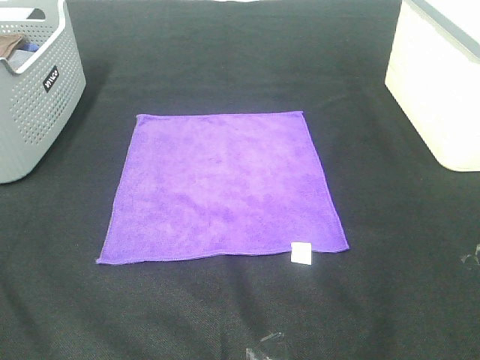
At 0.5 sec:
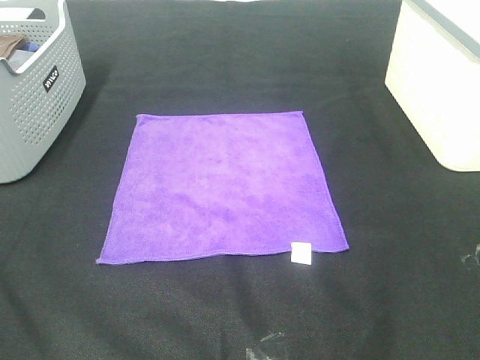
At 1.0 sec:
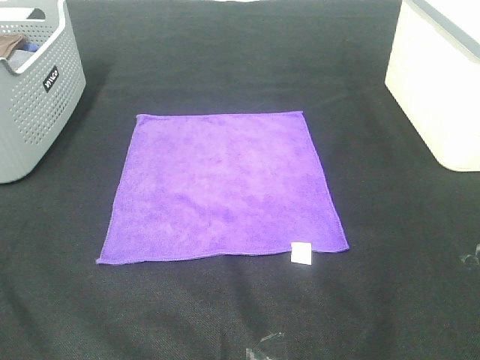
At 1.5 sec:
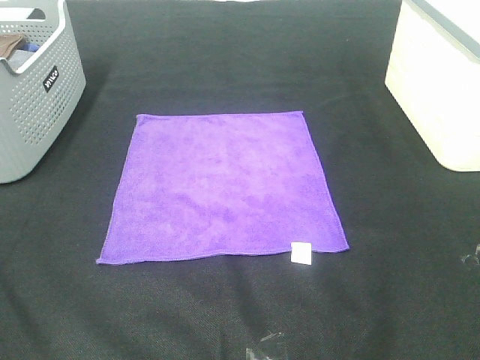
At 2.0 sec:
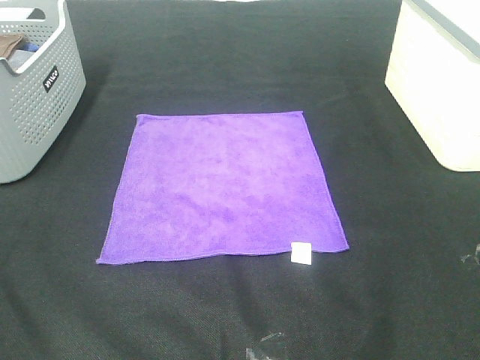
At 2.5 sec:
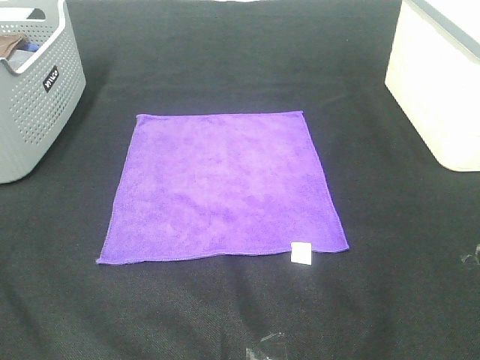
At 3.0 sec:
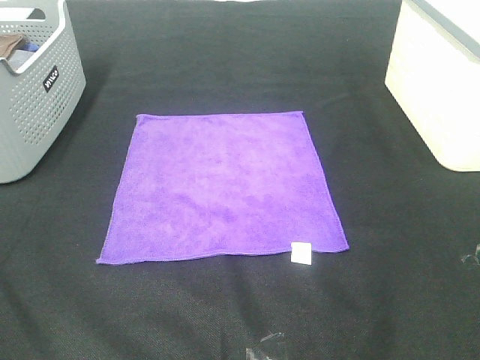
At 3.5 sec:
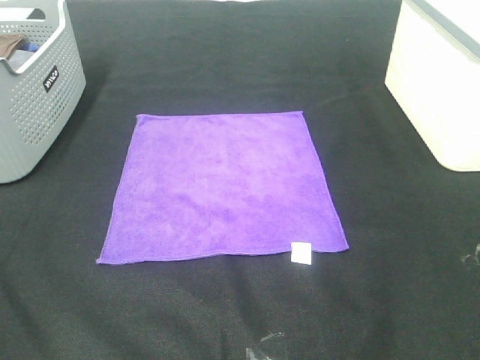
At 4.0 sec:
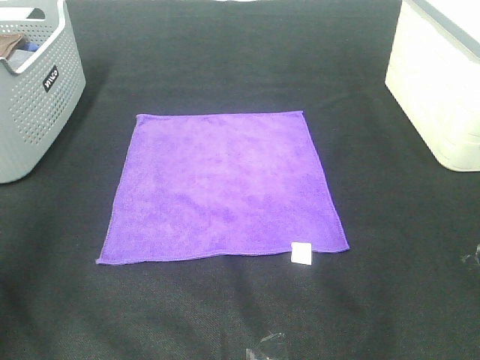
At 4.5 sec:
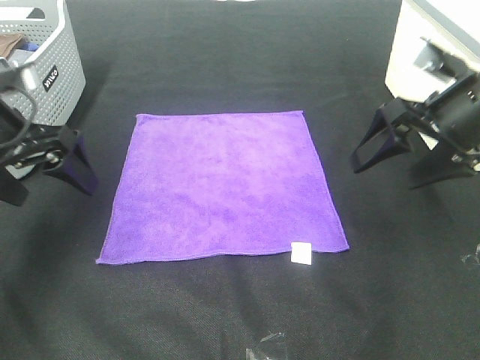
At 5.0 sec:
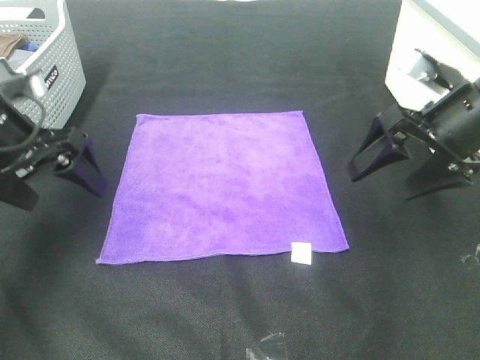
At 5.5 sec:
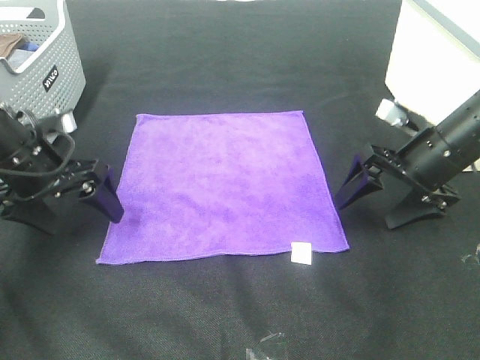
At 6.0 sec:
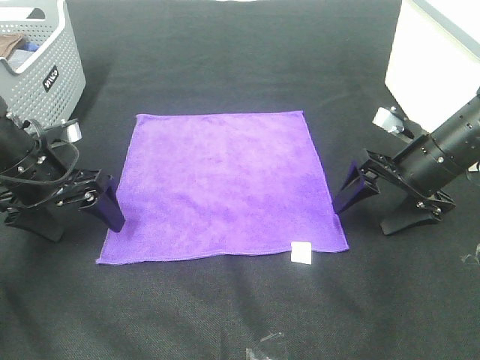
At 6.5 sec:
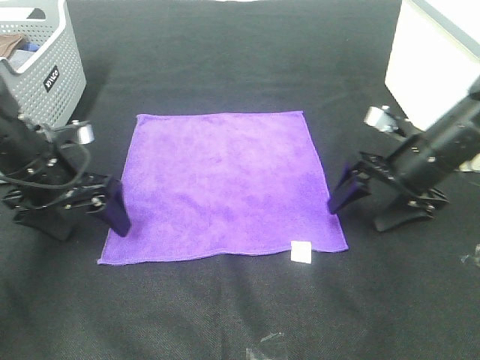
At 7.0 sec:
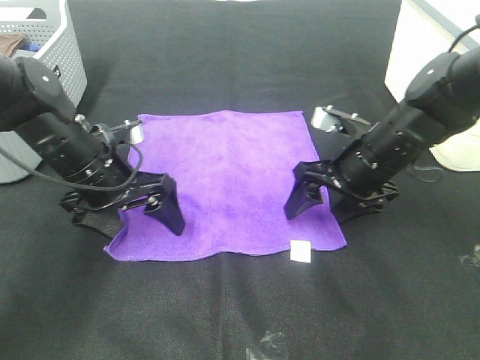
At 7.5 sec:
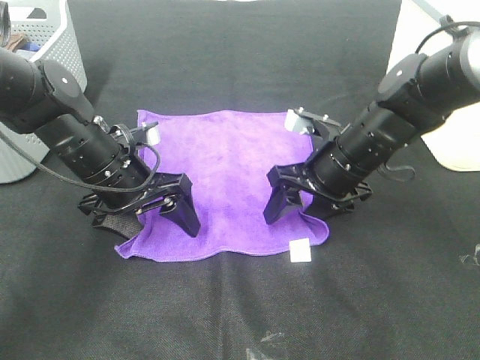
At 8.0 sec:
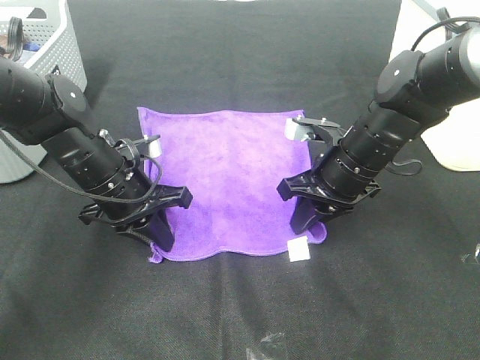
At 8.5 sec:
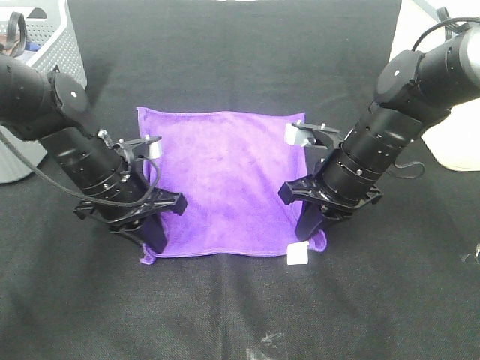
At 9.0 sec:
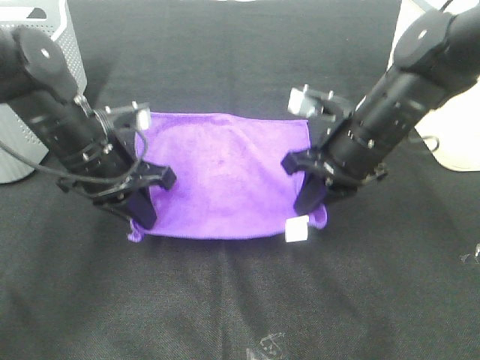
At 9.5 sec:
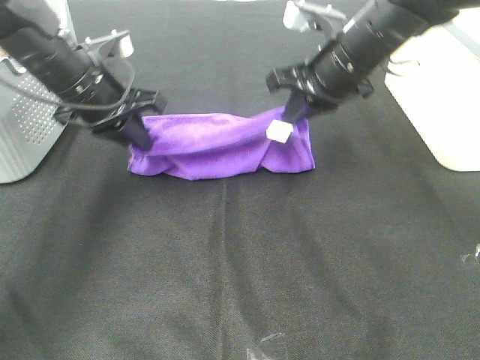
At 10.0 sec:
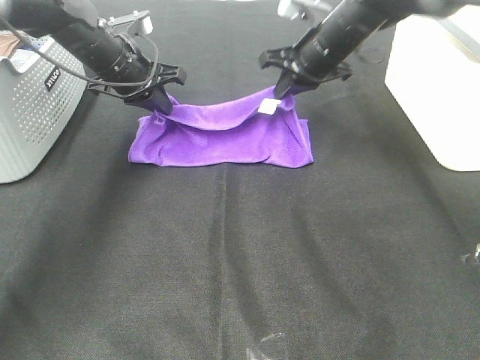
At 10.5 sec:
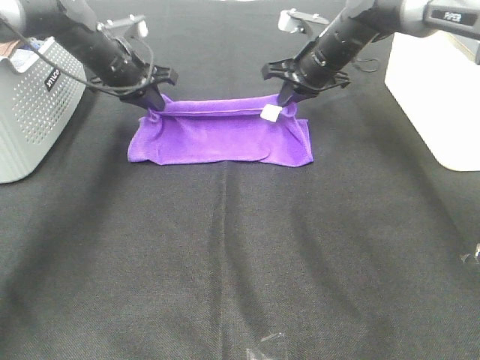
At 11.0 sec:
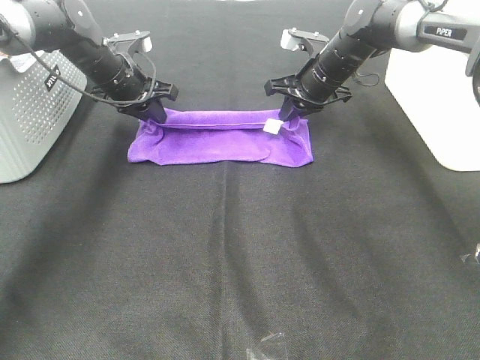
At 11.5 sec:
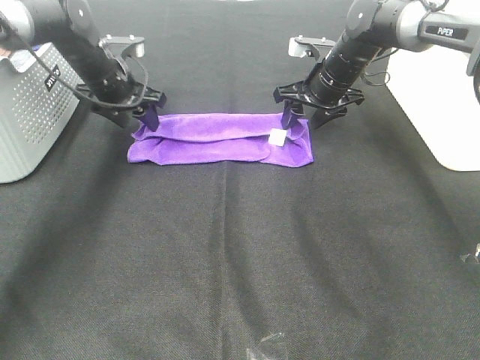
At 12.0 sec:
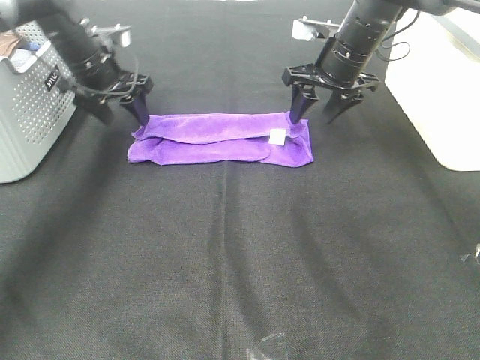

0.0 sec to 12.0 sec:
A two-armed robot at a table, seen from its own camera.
Task of the whole recording: Fold towels.
Step, 0.0 sec to 8.0 sec: Left hand: grab the bottom left corner of purple towel.
Step, 0.0 sec to 8.0 sec: Right hand: grab the bottom right corner of purple towel.
Step, 8.5 sec to 10.5 sec: Left hand: fold the purple towel up.
Step, 8.5 sec to 10.5 sec: Right hand: fold the purple towel up.
0.0 sec to 2.0 sec: The two grippers keep their place.
2.0 sec to 4.0 sec: The left gripper shifts approximately 20 cm forward.
4.0 sec to 6.0 sec: Both grippers travel together downward and forward, roughly 25 cm.
6.0 sec to 8.0 sec: The right gripper travels to the left by about 10 cm, and closes its fingers. The left gripper travels to the right by about 10 cm, and closes its fingers.
8.0 sec to 10.0 sec: The two grippers go some 15 cm forward and upward.
10.0 sec to 12.0 sec: The right gripper opens its fingers. Meanwhile the left gripper is displaced to the left by roughly 5 cm, and opens up.

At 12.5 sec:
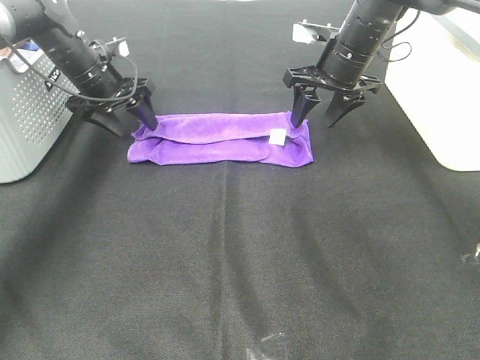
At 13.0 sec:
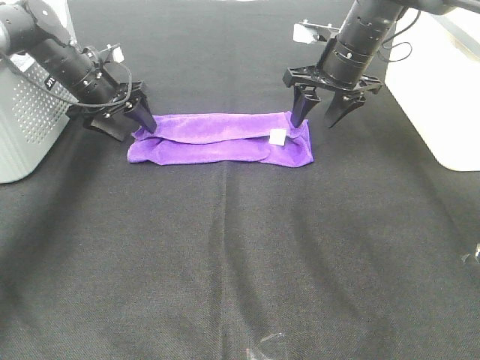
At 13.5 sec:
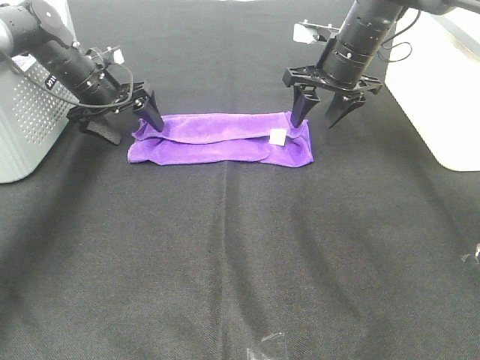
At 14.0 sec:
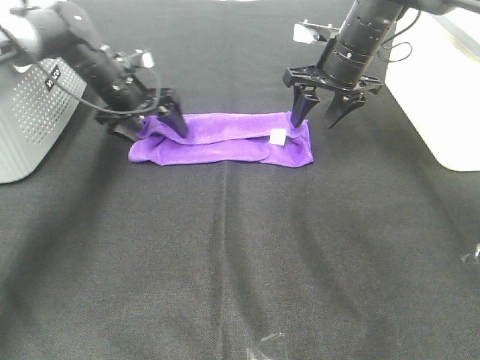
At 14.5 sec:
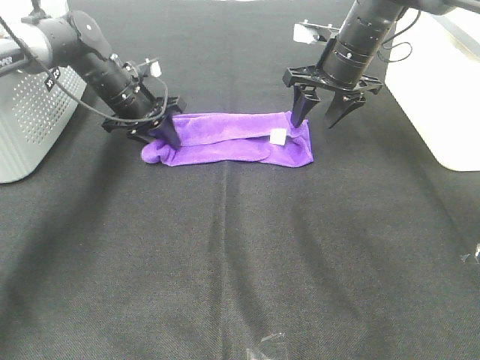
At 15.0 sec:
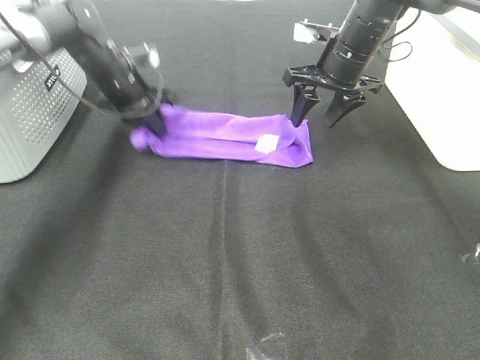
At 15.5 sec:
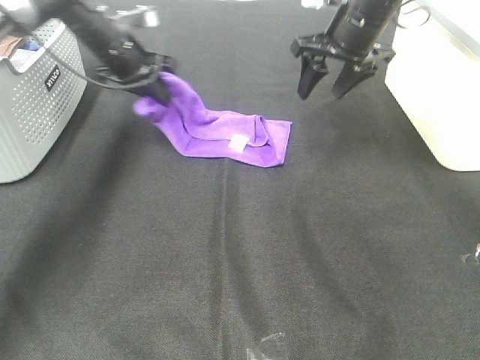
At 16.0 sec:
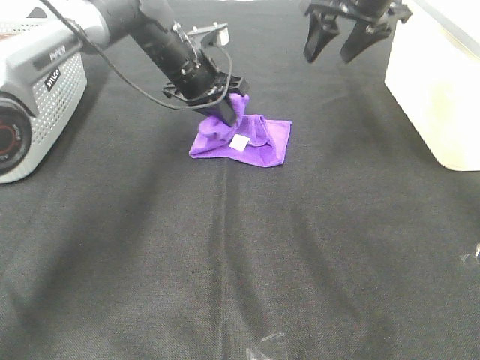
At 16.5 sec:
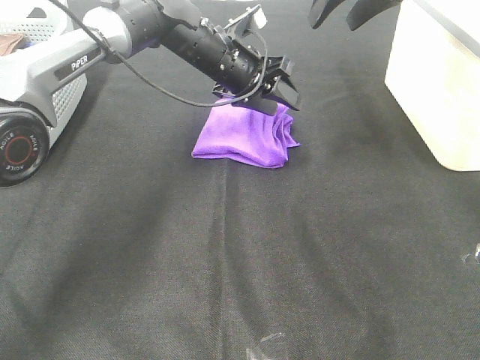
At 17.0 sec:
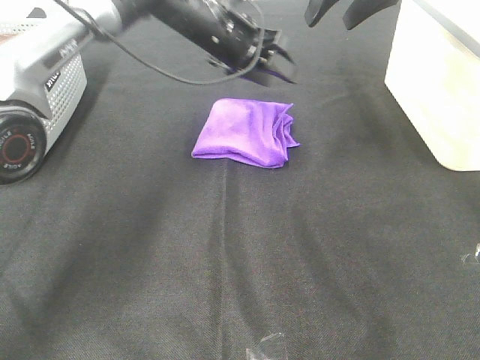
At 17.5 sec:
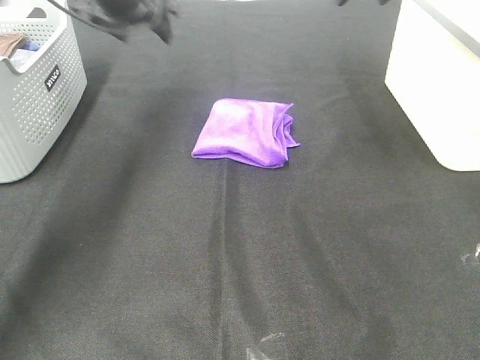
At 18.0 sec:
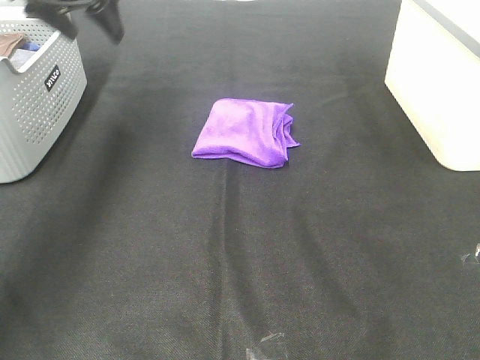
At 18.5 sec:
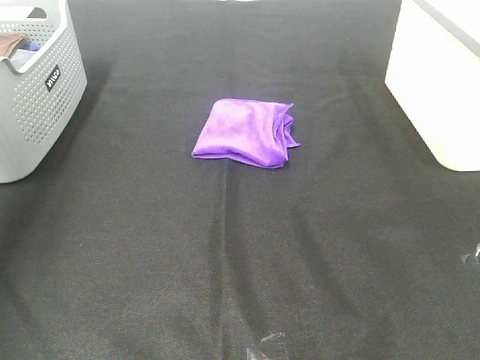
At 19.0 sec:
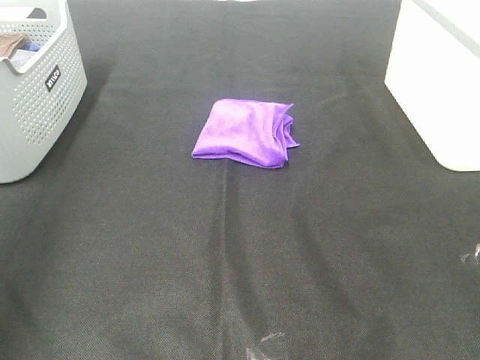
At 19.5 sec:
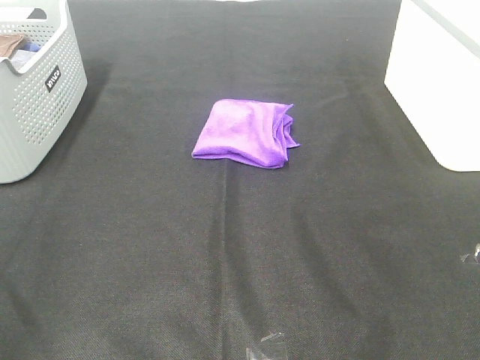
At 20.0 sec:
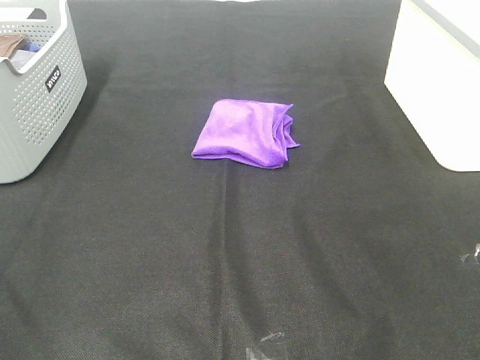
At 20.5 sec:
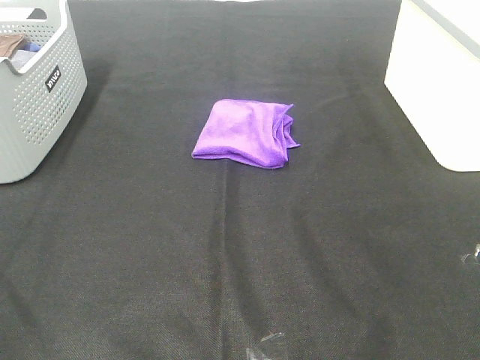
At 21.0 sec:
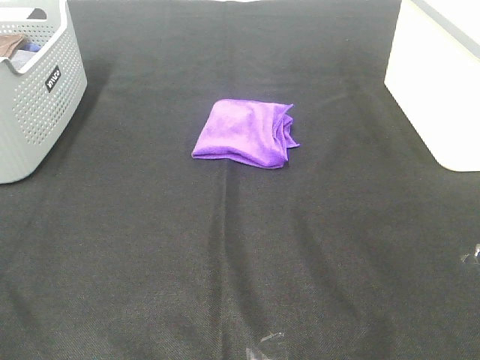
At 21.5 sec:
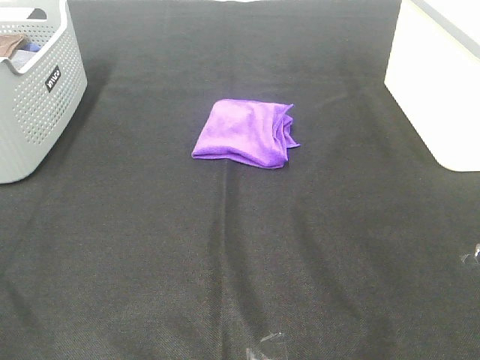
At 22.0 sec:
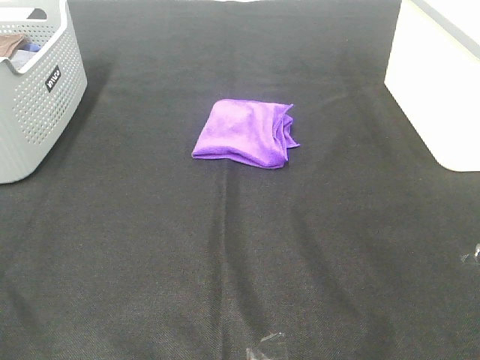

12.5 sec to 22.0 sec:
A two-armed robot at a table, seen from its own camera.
Task of the whole recording: Fold towels.
Step, 12.5 sec to 16.0 sec: Left hand: fold the purple towel from left to right.
12.5 sec to 14.5 sec: The left gripper shifts by roughly 5 cm, and closes up.
14.5 sec to 16.5 sec: The right gripper shifts some 15 cm upward. Meanwhile the left gripper is displaced to the right and upward by some 15 cm.
16.5 sec to 18.0 sec: The left gripper travels to the left and upward by some 25 cm, while the right gripper heads upward and backward, covering approximately 15 cm.
18.0 sec to 20.0 sec: The left gripper travels backward by some 50 cm.
